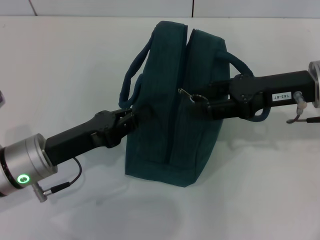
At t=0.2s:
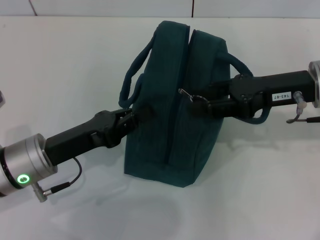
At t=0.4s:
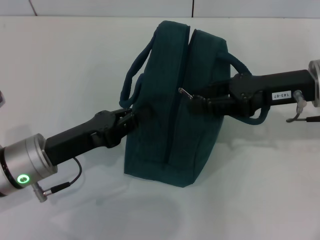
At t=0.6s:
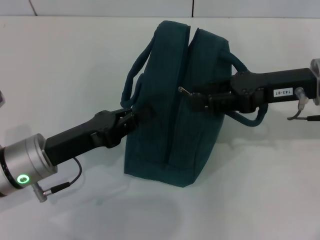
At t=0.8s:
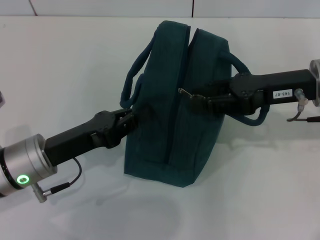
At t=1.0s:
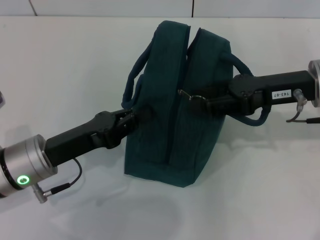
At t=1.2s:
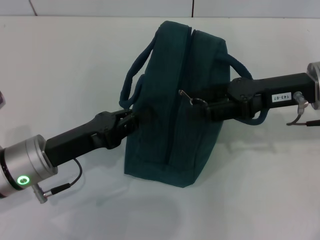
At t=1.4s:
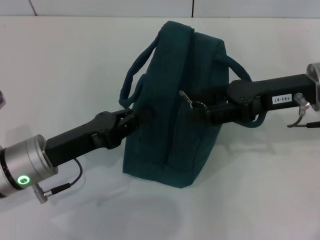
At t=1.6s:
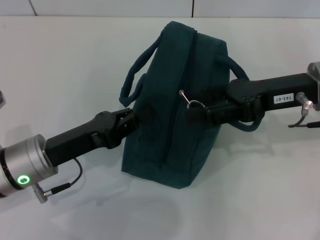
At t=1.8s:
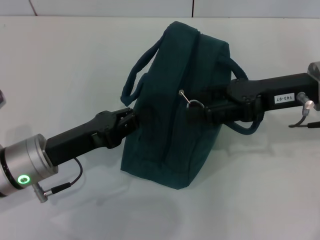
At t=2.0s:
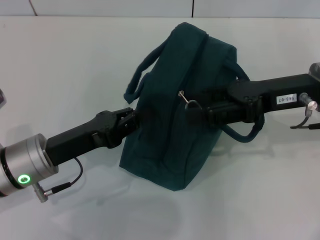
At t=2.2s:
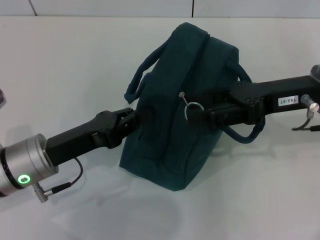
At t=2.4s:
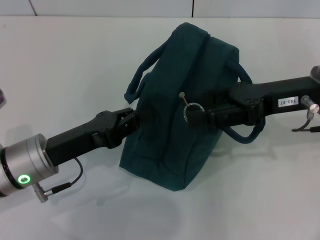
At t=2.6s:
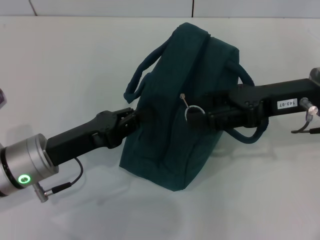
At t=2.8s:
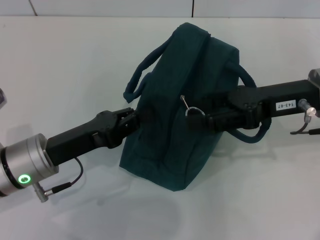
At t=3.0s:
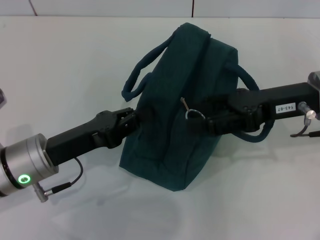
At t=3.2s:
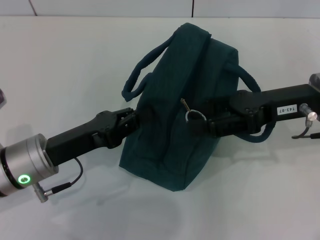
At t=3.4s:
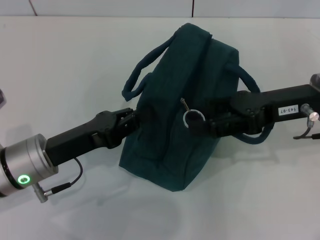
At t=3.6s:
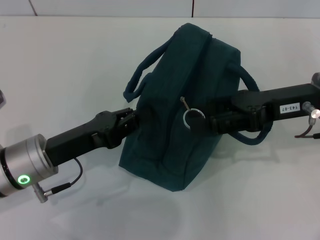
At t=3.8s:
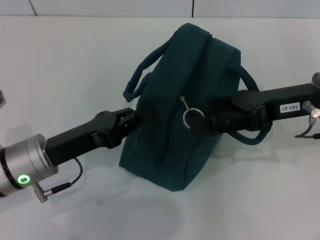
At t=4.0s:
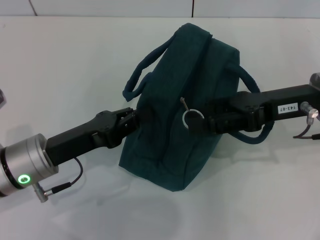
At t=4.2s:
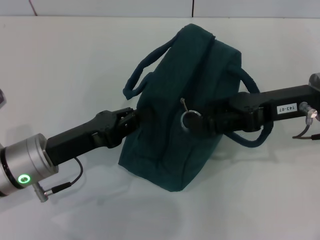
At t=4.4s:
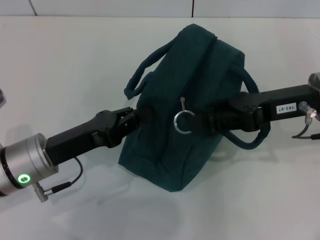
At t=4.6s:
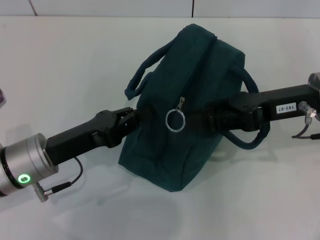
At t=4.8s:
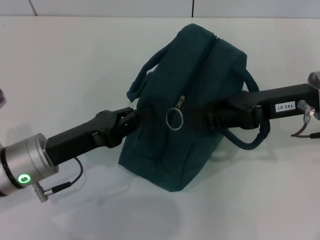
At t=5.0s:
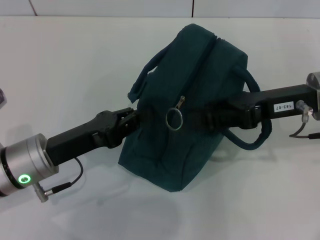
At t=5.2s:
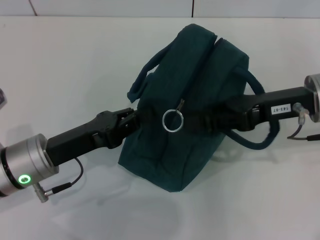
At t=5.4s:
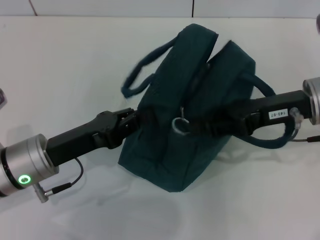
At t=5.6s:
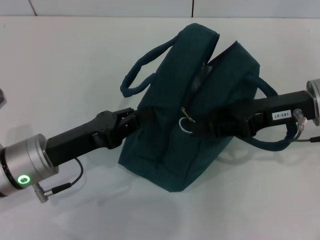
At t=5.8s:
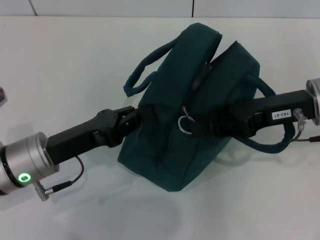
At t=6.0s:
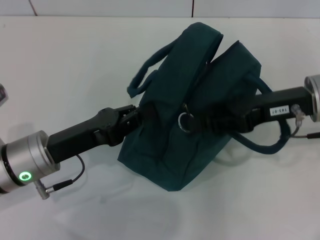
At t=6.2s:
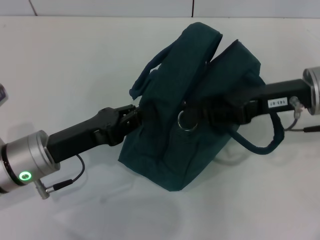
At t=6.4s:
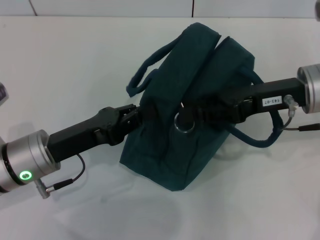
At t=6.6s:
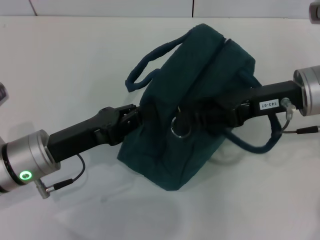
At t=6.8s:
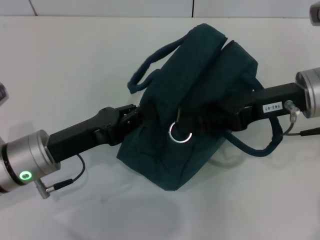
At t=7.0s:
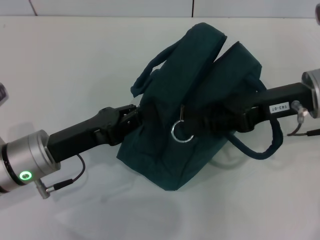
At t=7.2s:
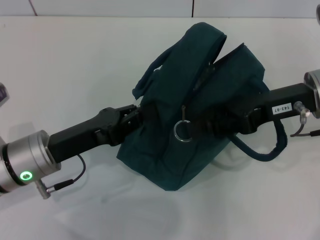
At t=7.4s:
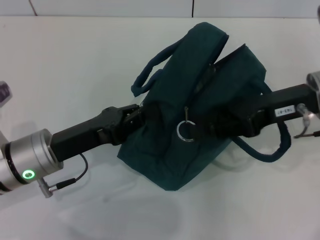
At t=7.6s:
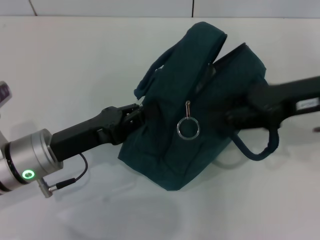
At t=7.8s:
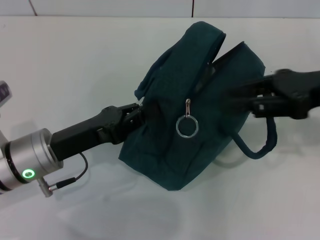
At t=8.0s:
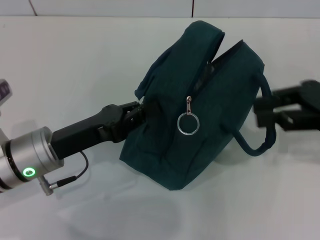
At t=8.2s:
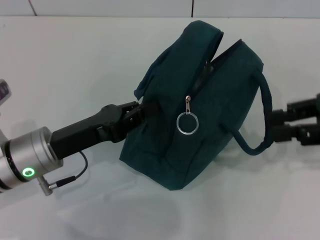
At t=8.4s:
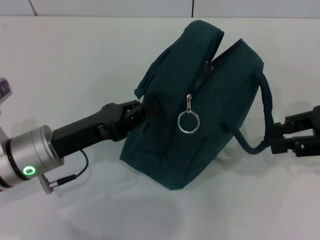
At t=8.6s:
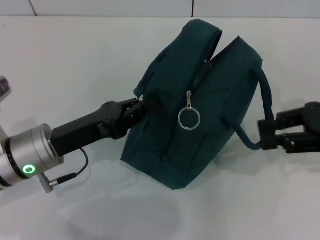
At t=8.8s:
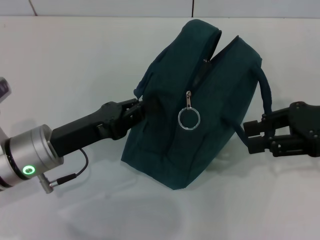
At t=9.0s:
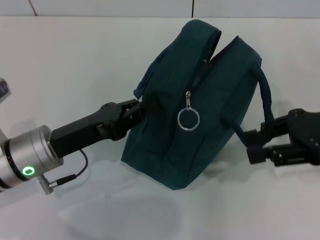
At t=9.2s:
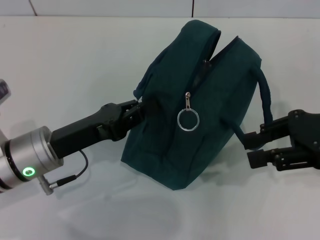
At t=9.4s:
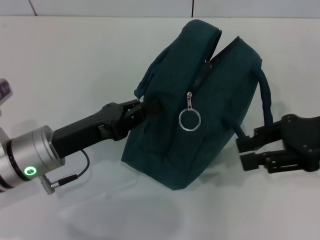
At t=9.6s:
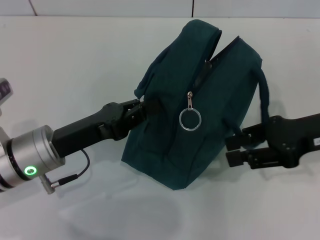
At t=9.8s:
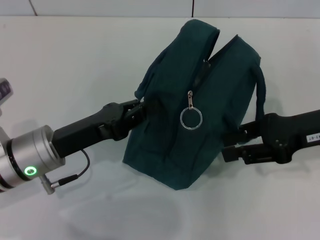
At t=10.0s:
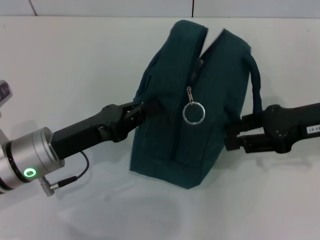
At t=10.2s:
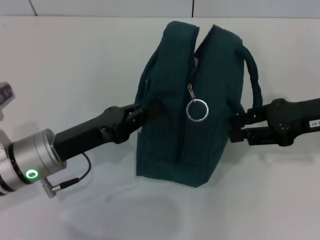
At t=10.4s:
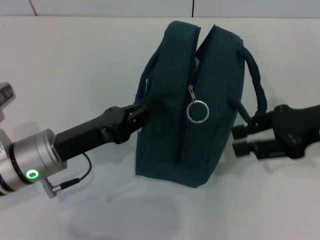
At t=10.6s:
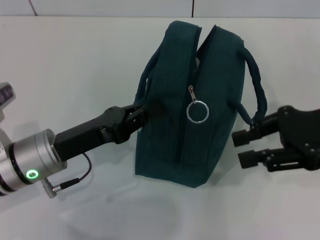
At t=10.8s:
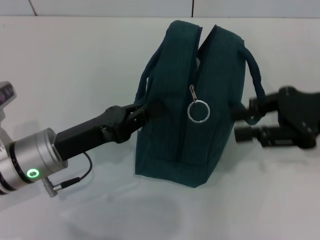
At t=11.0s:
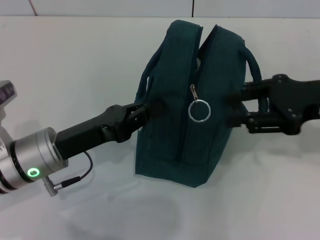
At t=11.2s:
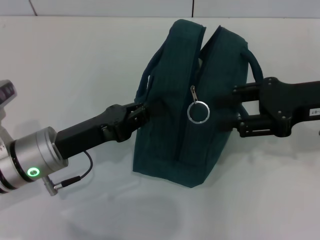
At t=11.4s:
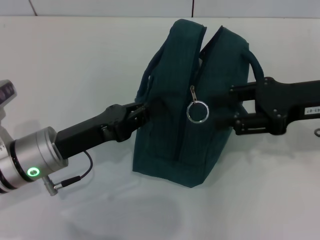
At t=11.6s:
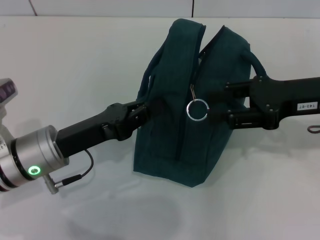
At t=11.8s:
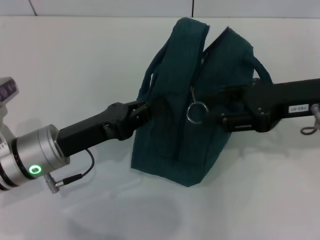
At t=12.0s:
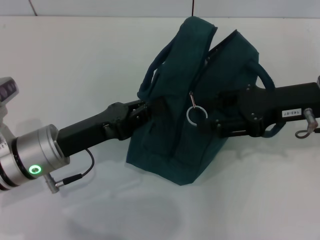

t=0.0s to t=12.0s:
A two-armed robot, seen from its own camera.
t=0.0s to t=1.6s: The grippers move only a little.
t=1.6s to t=3.0s: Both grippers stay about where they are.
t=3.0s to t=4.4s: The two grippers keep their place.
t=4.4s to t=7.6s: The grippers stay close to where they were, moving slightly.
t=9.0s to t=12.0s: The grippers make only small movements.

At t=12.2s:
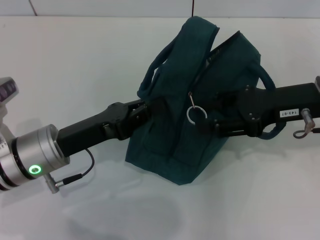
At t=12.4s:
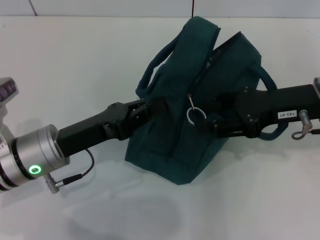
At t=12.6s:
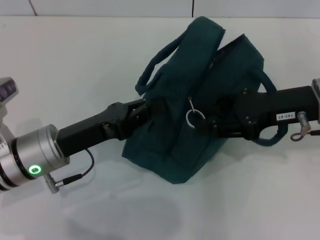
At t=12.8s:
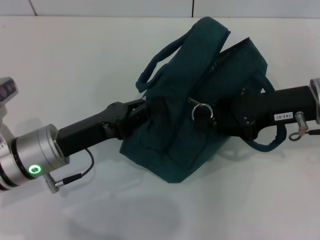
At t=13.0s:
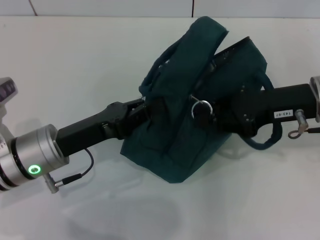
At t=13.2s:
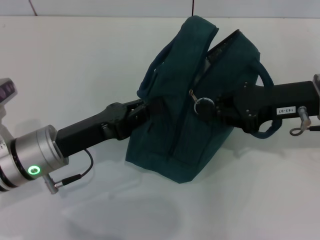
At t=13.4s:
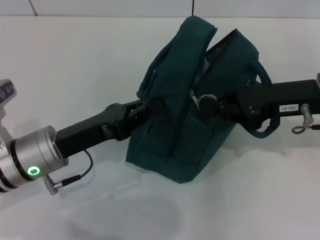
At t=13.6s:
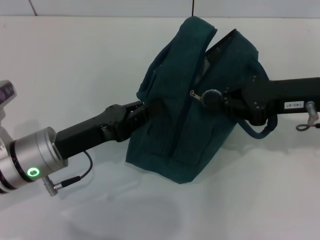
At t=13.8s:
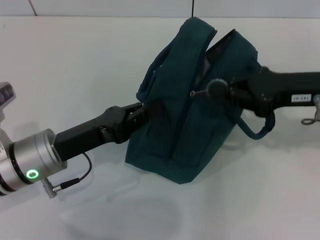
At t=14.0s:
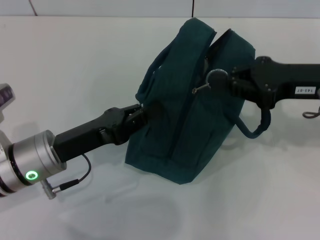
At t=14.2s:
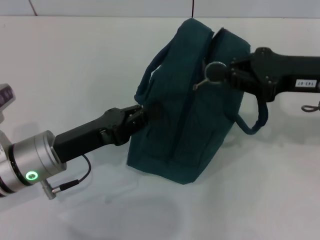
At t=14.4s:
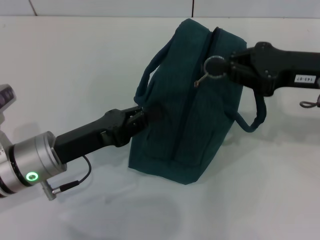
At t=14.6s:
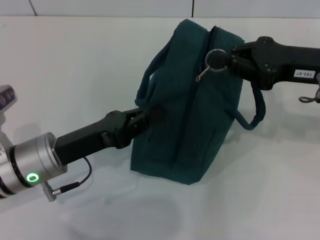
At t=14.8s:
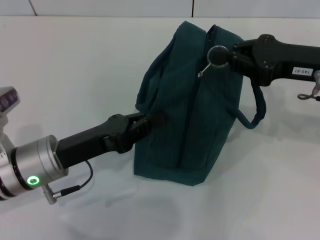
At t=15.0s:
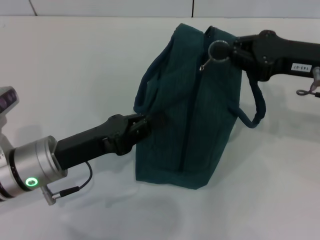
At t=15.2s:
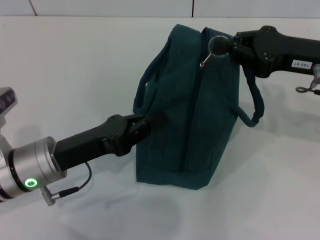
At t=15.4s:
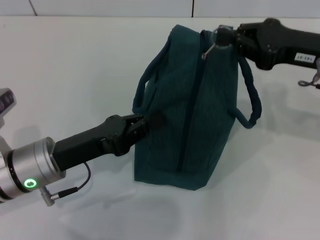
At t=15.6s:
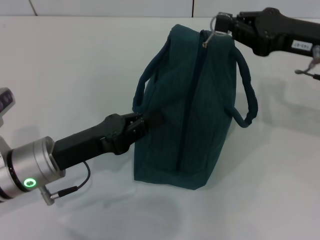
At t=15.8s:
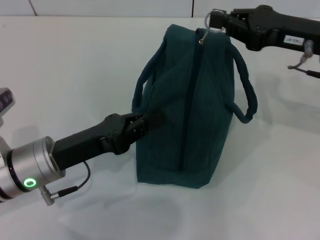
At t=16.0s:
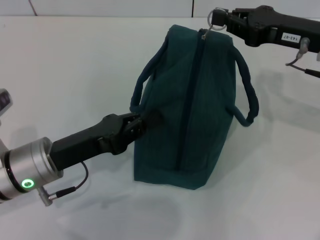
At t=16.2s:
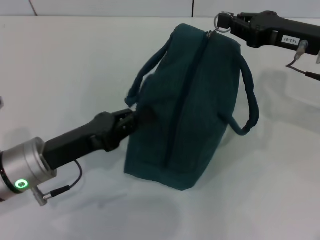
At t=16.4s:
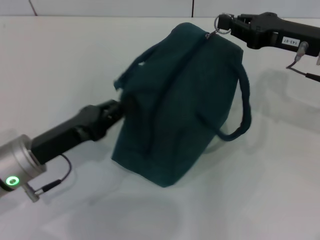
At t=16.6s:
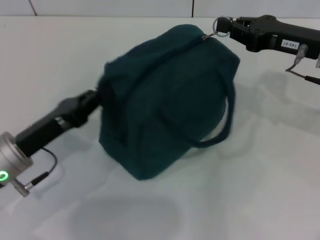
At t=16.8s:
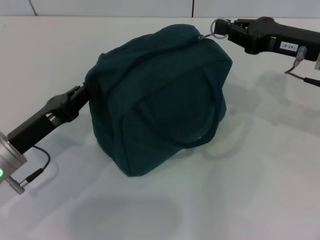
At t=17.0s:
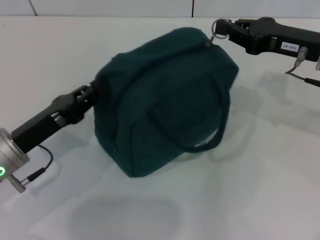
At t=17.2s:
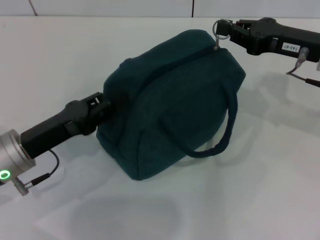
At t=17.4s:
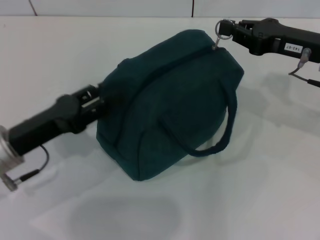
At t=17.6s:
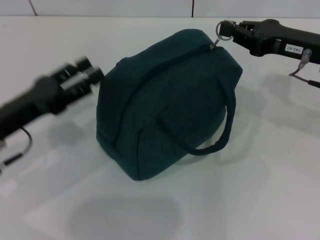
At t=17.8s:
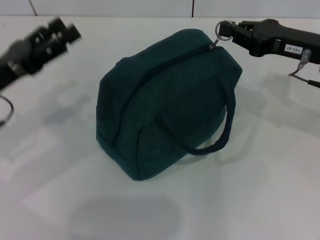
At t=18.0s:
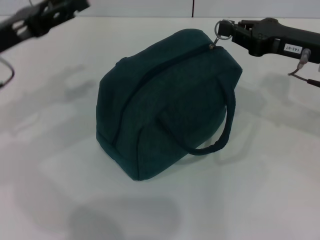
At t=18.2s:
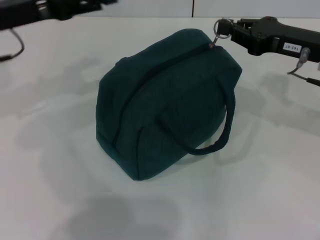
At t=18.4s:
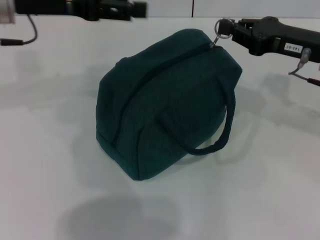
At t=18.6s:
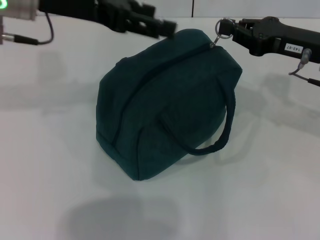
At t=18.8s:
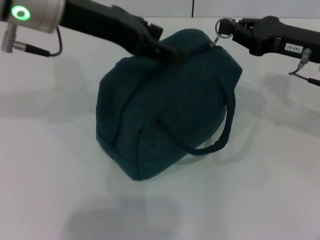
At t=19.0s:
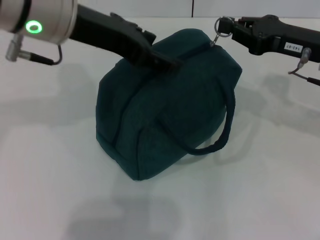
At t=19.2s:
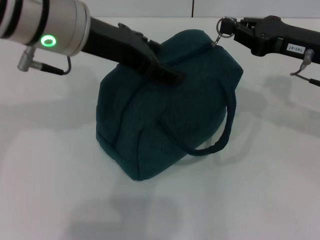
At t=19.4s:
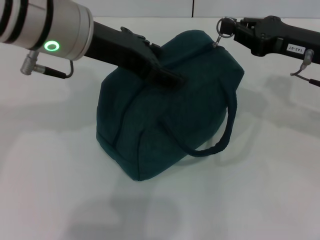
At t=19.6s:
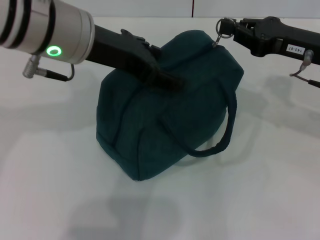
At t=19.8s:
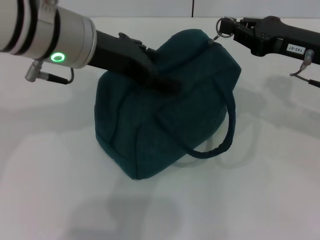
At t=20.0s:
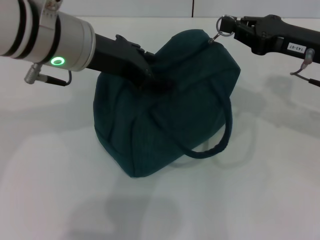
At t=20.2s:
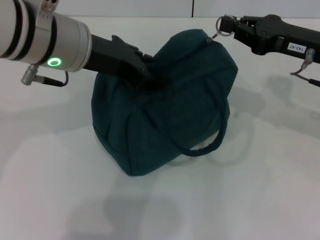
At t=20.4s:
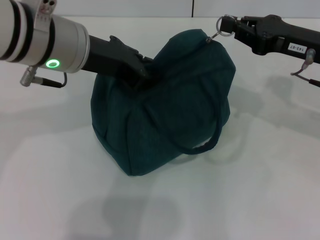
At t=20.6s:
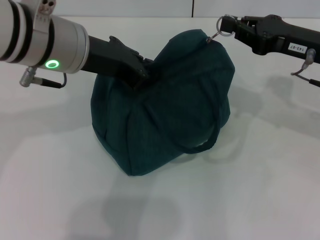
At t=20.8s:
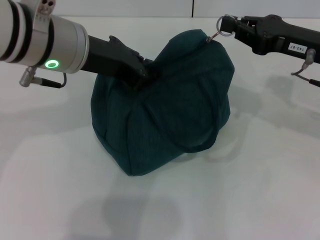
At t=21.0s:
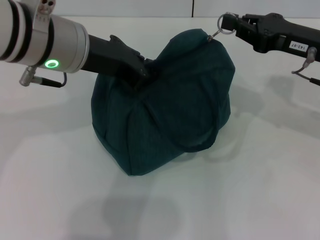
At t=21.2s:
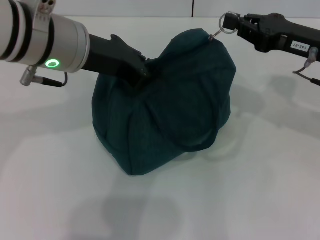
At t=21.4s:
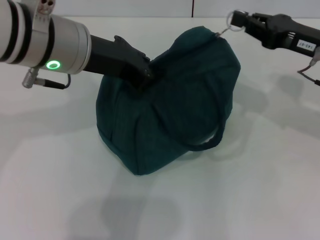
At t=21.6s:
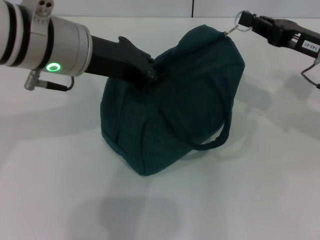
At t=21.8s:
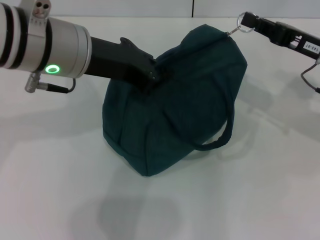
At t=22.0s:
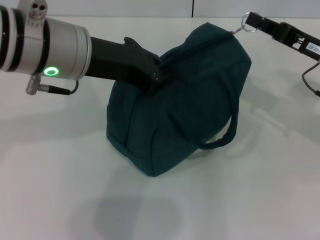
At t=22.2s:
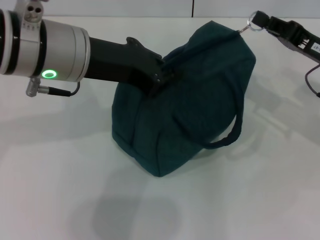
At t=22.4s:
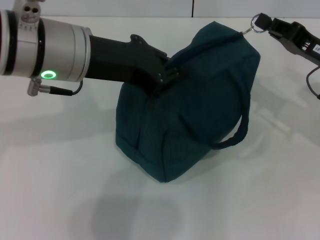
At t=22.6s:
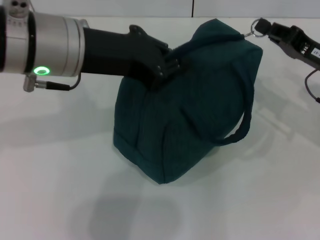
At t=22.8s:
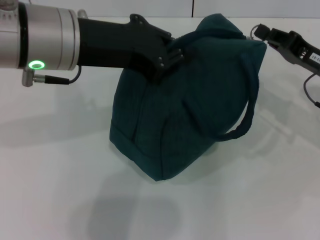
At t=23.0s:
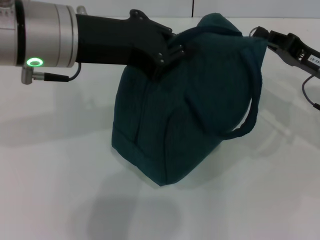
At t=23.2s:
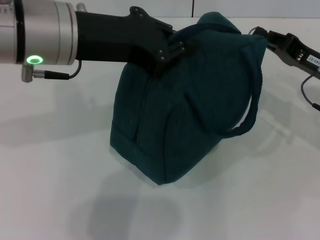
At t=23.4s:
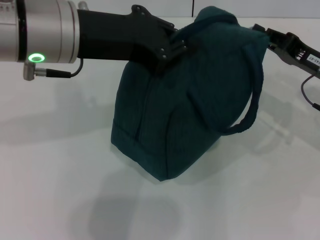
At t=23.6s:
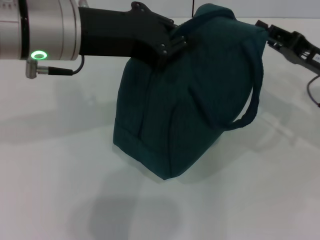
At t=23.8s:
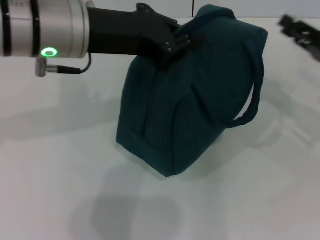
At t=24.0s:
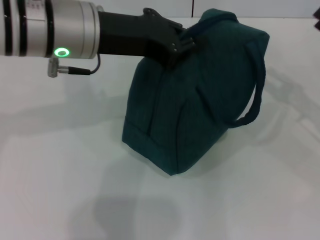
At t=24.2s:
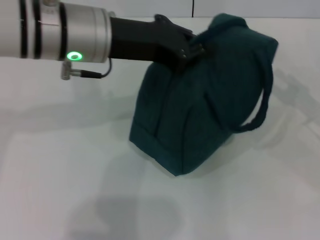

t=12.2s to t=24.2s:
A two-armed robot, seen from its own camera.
Step, t=12.2s to t=23.6s: Zip up the lunch bag with your right hand.
t=12.2s to t=13.8s: The right gripper closes its fingers.
t=16.6s to t=18.2s: The left gripper shifts roughly 20 cm upward and forward, and opens its fingers.
t=18.2s to t=19.8s: The left gripper travels to the right by about 15 cm.
t=19.8s to t=21.2s: The left gripper closes up.
t=21.2s to t=22.6s: The right gripper travels downward by roughly 5 cm.
t=22.6s to t=24.2s: The right gripper heads to the right, covering some 10 cm, and opens up.
